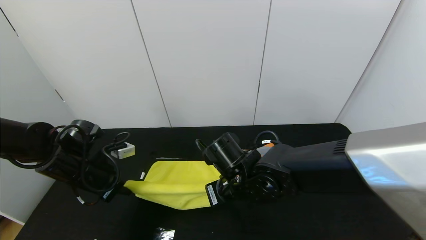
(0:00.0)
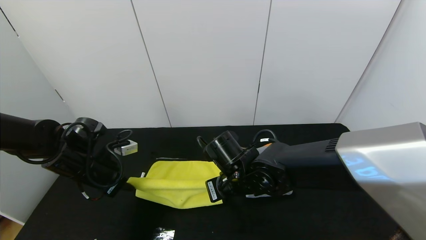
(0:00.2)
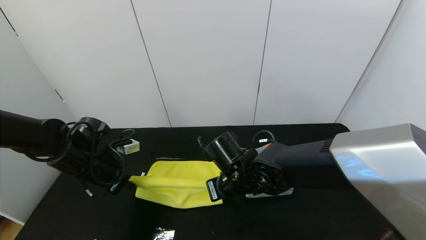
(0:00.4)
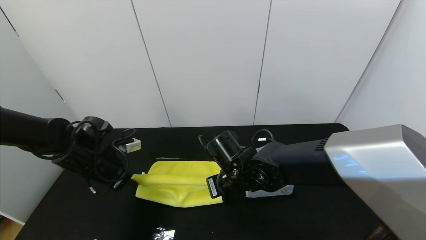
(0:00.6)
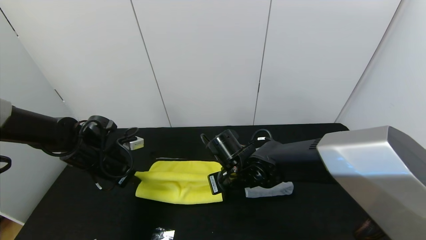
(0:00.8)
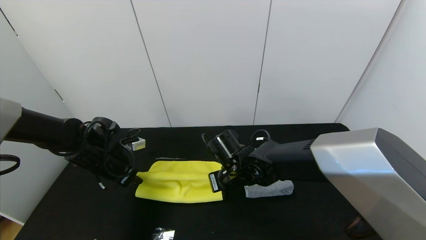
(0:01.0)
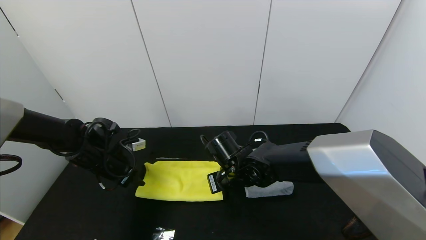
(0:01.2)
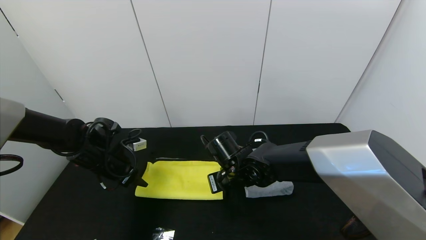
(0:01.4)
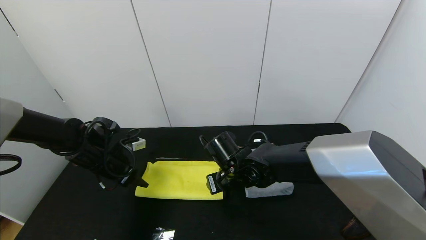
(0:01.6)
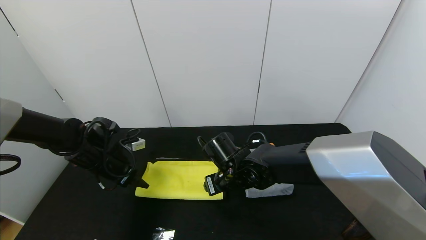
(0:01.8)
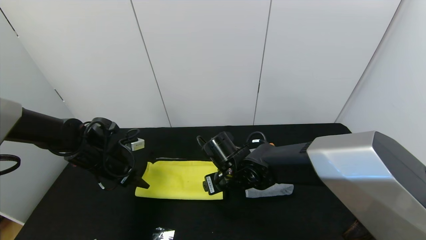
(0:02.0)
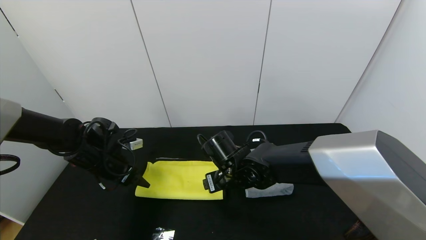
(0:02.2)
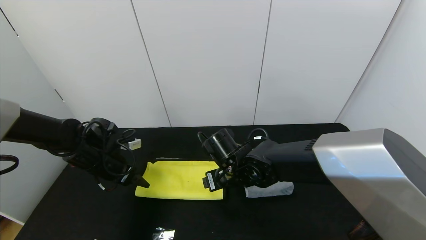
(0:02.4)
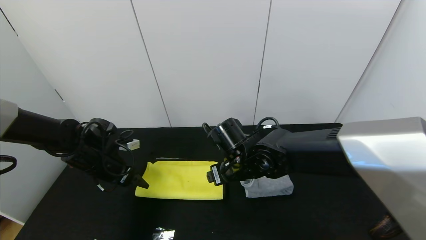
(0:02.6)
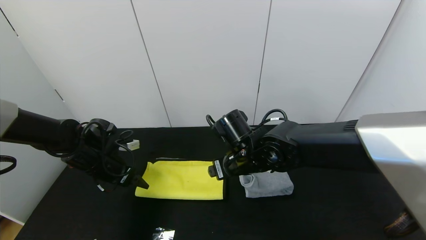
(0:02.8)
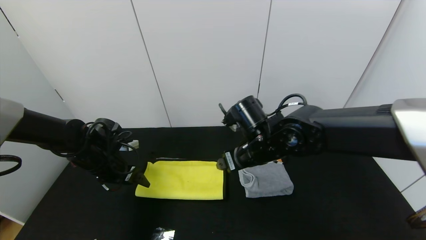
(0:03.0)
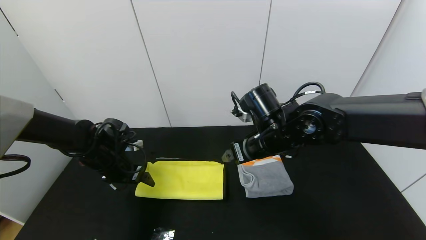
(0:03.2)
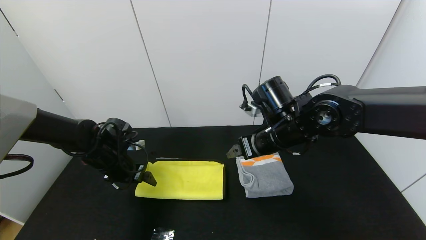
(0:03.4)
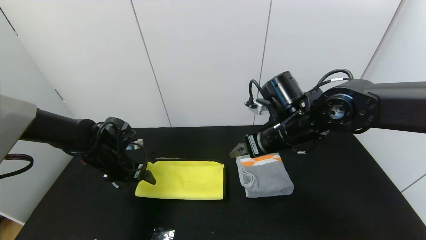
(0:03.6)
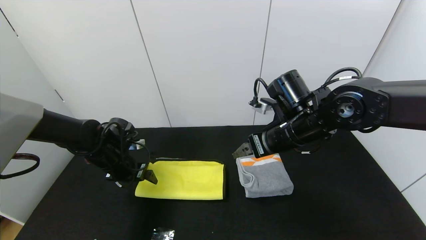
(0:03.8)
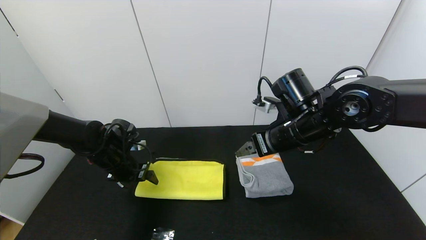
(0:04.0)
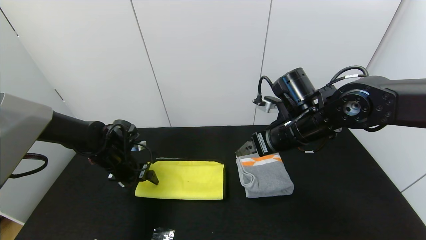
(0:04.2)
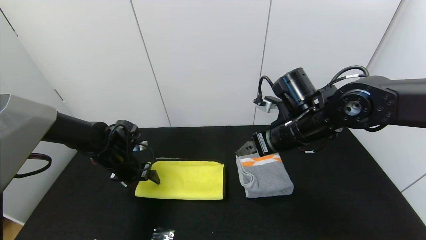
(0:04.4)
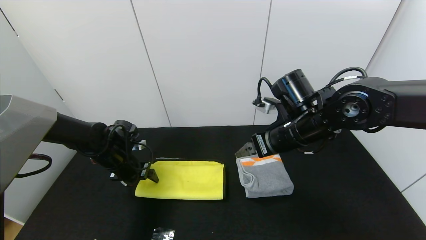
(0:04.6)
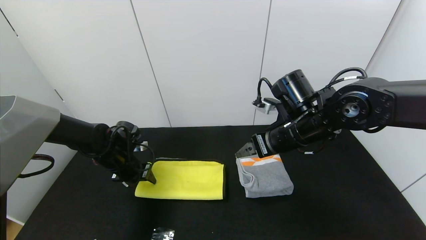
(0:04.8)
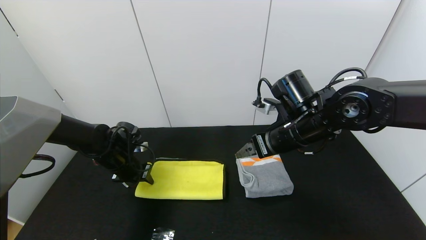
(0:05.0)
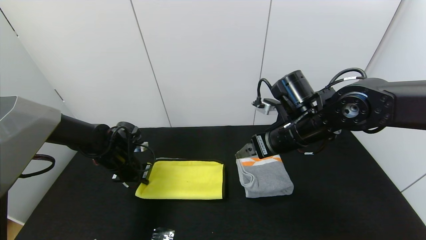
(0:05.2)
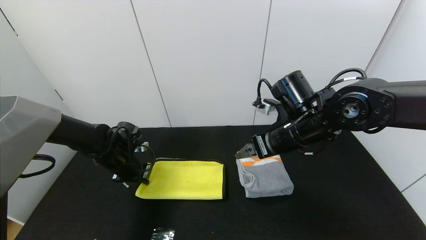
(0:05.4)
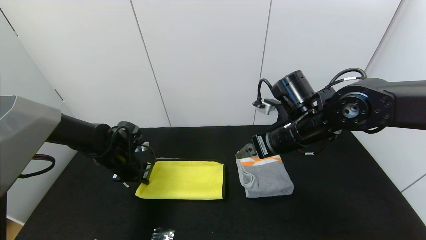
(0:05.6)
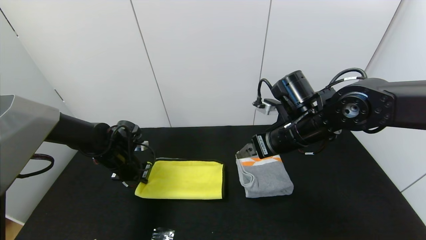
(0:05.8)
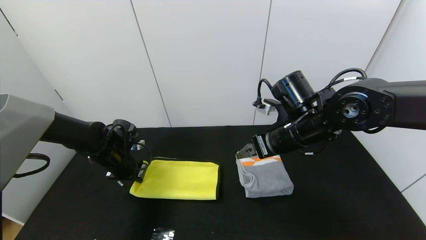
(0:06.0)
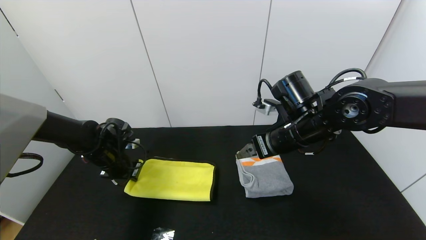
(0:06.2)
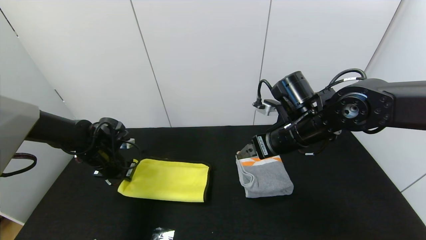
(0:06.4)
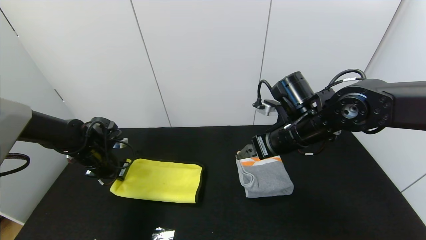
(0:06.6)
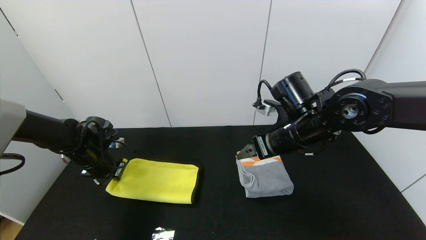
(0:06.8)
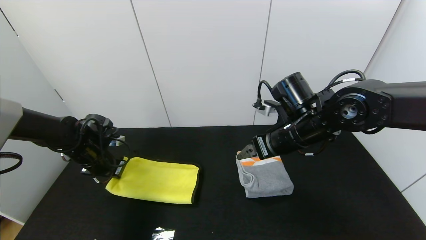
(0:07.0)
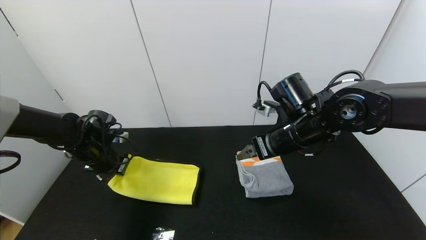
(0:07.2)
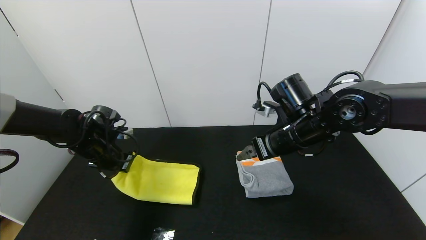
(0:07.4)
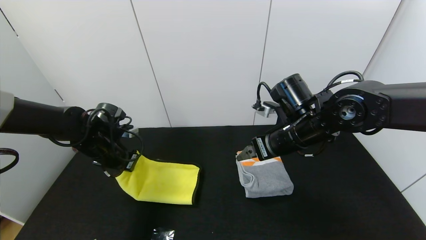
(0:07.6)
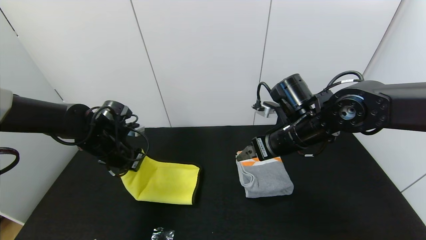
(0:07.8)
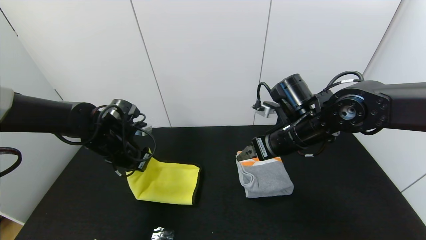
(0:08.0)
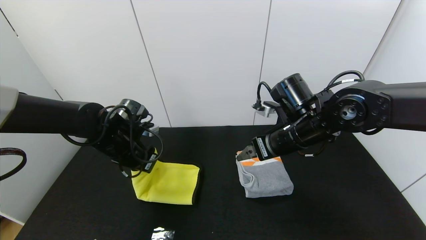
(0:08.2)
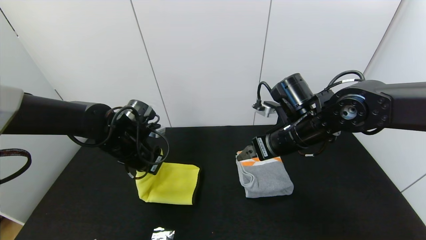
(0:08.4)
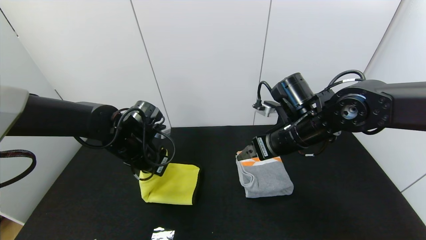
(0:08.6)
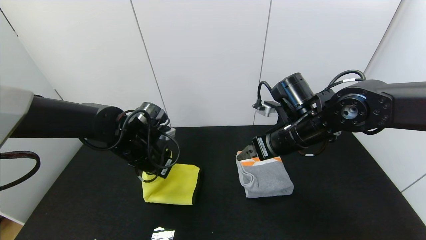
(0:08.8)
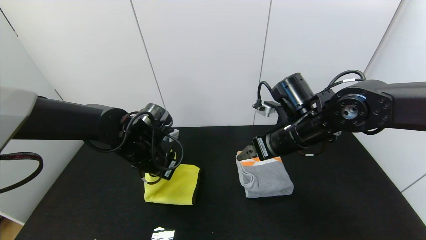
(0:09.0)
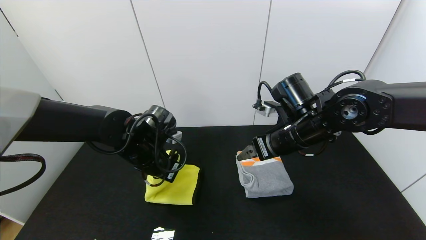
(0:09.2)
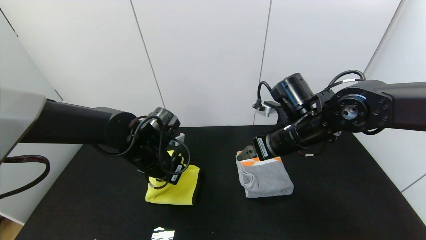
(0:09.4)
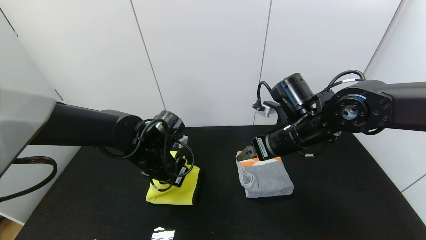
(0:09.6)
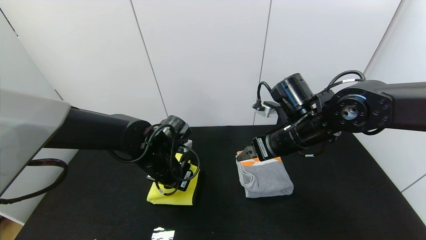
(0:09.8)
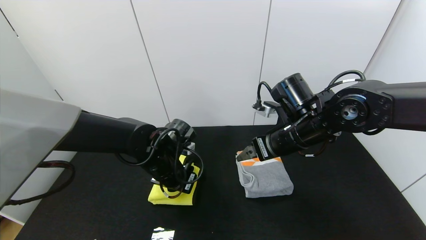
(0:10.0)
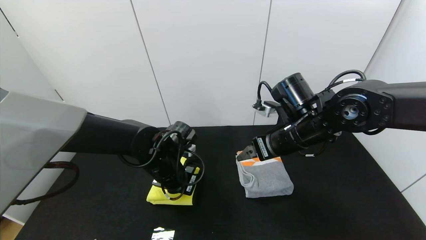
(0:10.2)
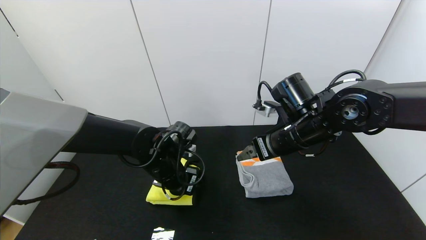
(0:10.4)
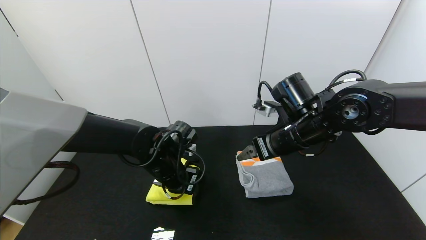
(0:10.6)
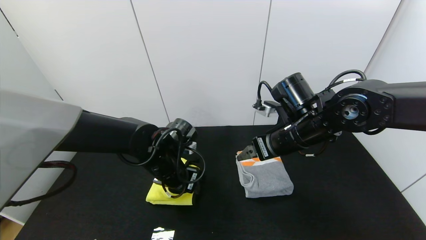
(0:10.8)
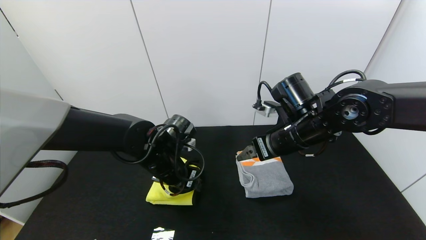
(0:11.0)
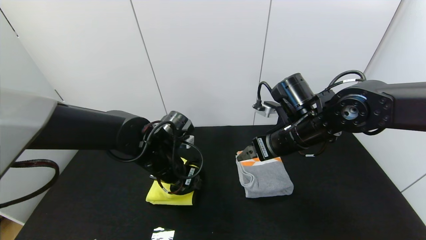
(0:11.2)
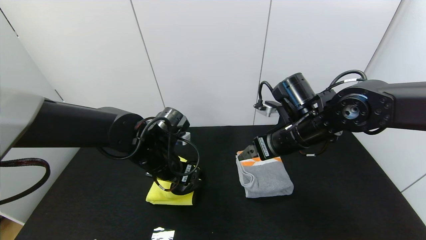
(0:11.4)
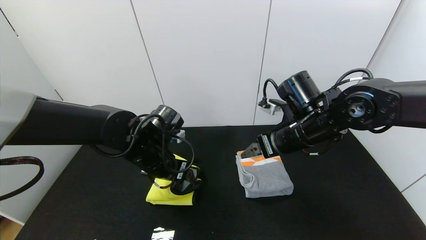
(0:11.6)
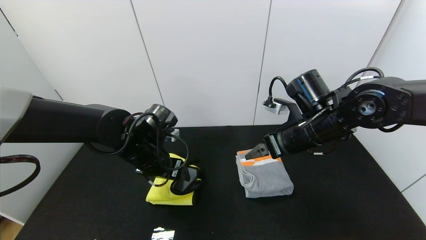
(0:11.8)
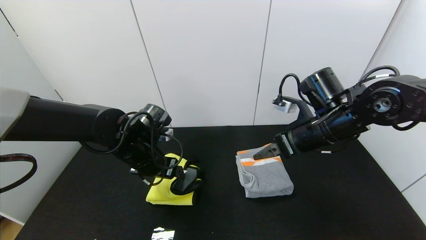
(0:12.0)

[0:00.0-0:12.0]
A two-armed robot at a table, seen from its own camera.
Task of the whole recording: Use the gripper to fold the yellow towel and grey towel in half twice,then put the yellow towel on the grey towel.
Step, 0:01.6 to 0:11.8: Fold the yellow towel from left to right with left gripper.
0:00.0 to 0:01.6: The right gripper ends up about 5 cm from where it was, and opens up. Meanwhile the left gripper is displaced forward by roughly 5 cm, and opens up.
0:01.6 to 0:03.0: The right gripper goes approximately 10 cm upward and to the right.
0:03.0 to 0:04.4: The right gripper travels to the right by about 5 cm.
0:04.4 to 0:06.0: The left gripper closes.
0:06.0 to 0:07.6: The left gripper heads upward, covering approximately 5 cm.
0:07.6 to 0:09.0: The left gripper goes roughly 10 cm to the right.
0:09.0 to 0:10.4: The left gripper changes place by about 5 cm, and opens its fingers.
0:10.4 to 0:12.0: The left gripper changes place by approximately 5 cm, and opens up; the right gripper moves some 5 cm.

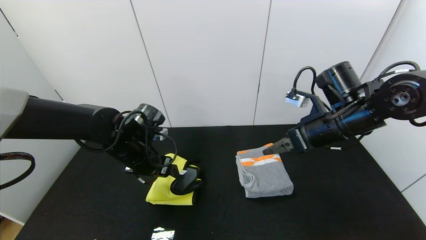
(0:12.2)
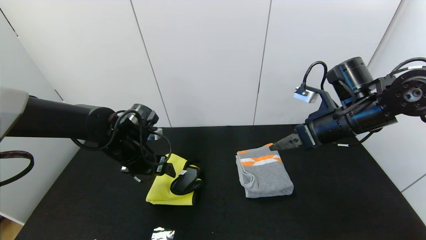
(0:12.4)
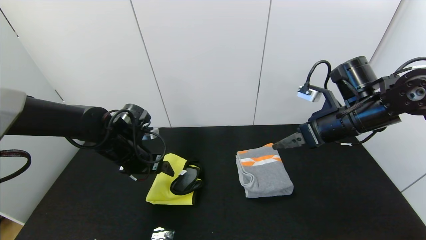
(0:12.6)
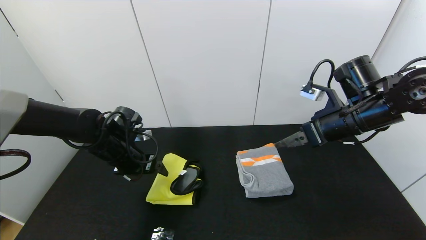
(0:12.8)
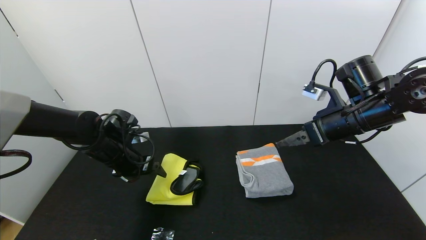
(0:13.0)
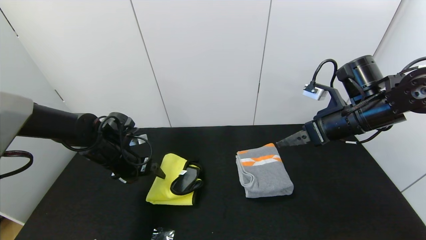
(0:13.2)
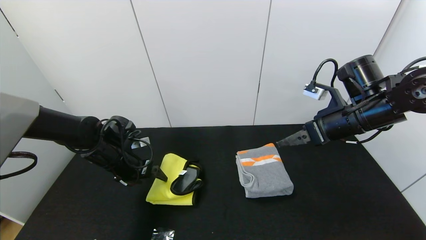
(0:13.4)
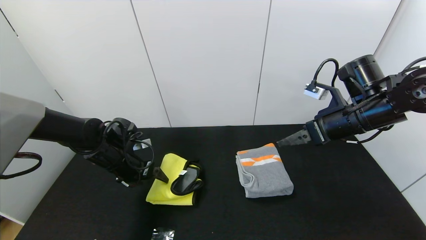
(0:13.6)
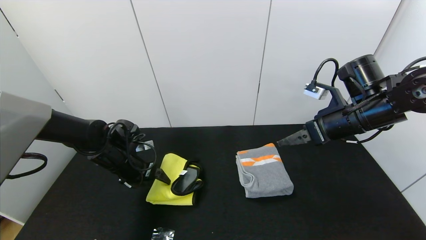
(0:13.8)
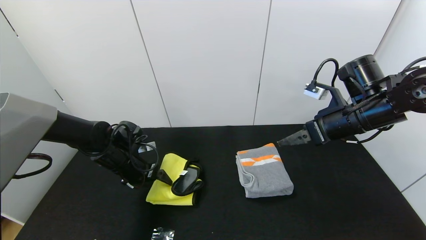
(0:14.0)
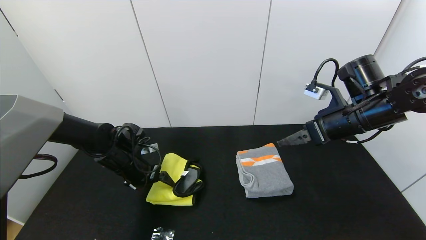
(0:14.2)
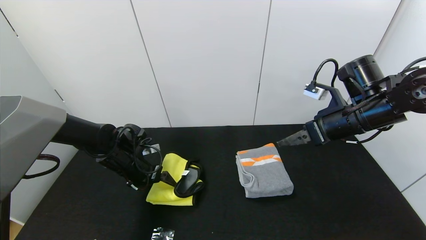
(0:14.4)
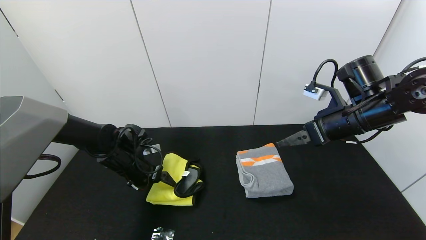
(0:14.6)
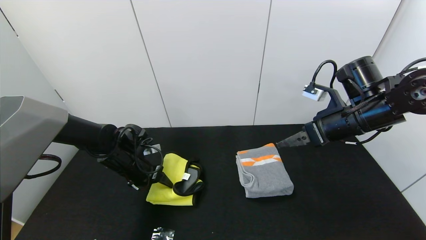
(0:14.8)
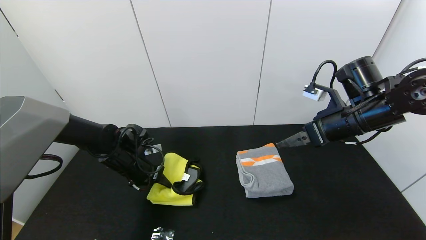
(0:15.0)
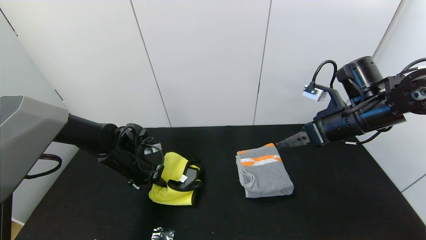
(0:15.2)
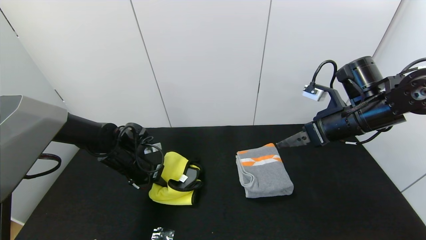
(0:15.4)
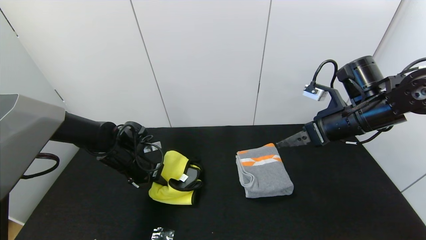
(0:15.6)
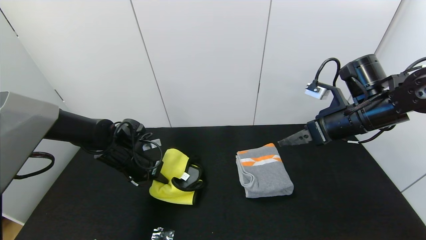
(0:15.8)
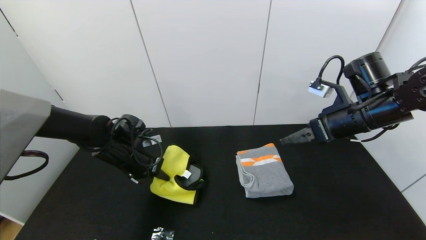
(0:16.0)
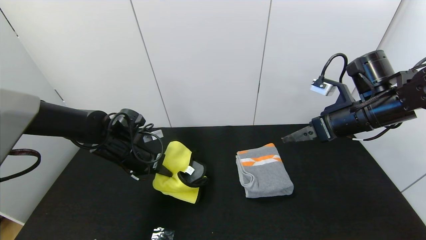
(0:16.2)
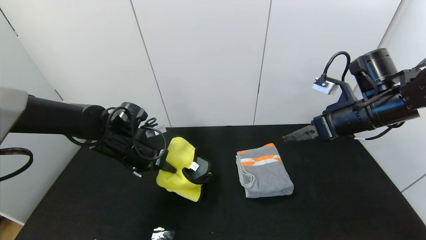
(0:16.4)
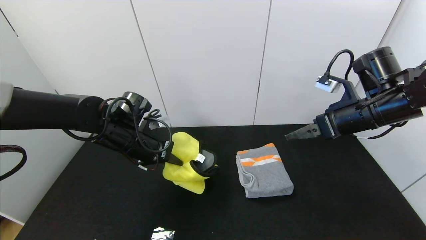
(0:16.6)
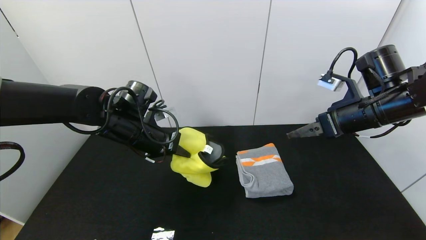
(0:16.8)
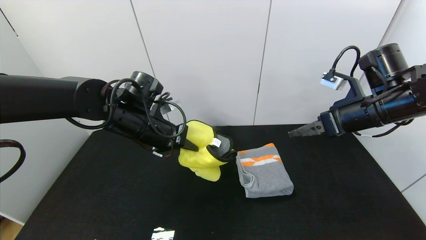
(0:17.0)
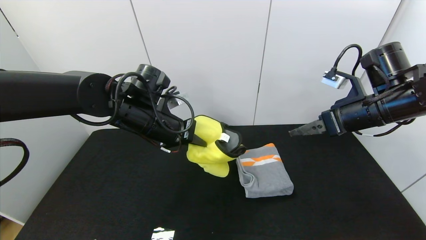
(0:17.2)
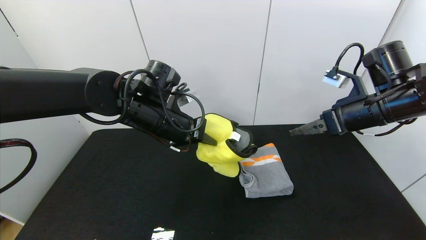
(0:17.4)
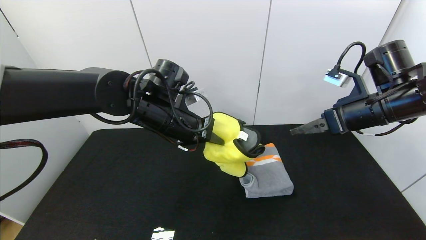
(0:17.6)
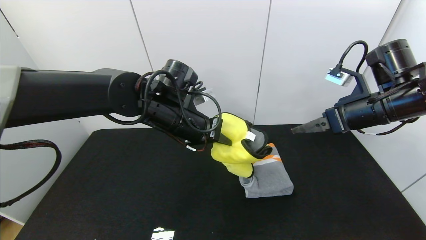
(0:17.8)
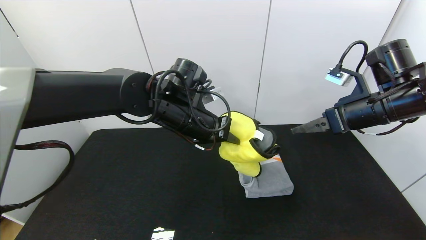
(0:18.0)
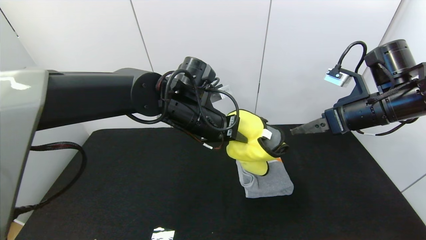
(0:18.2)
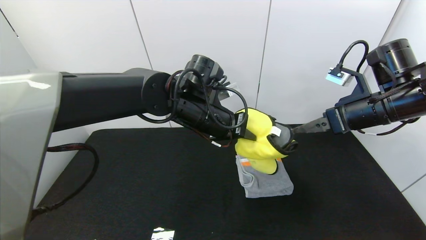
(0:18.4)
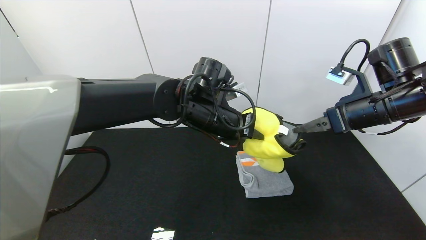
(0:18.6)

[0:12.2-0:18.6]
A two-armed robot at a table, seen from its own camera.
Task of the whole recording: Use the gripper to fold the yellow towel and grey towel in half twice,then put the yellow towel on the grey towel.
0:12.2 to 0:13.8: The left gripper is displaced to the left and downward by about 10 cm.
0:13.8 to 0:15.4: The left gripper closes up.
0:15.4 to 0:17.0: The left gripper goes some 15 cm upward and to the right.
0:17.0 to 0:18.6: The left gripper moves to the right, some 15 cm.
